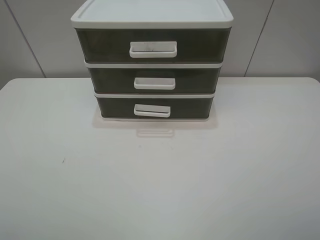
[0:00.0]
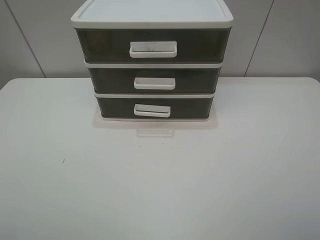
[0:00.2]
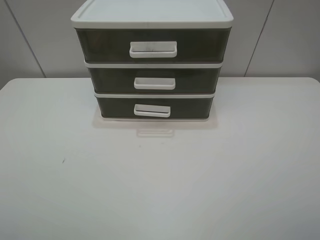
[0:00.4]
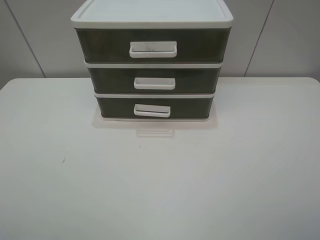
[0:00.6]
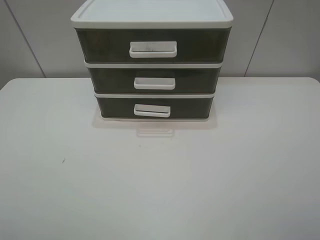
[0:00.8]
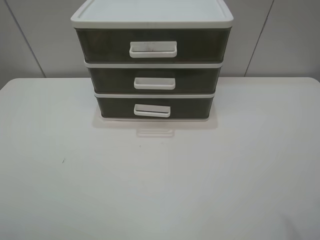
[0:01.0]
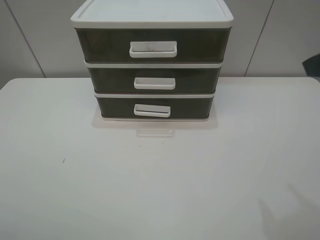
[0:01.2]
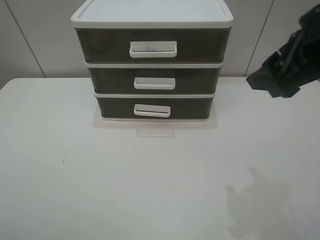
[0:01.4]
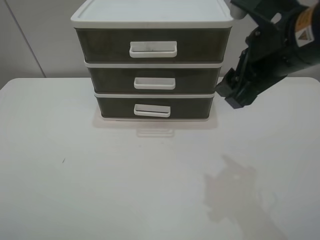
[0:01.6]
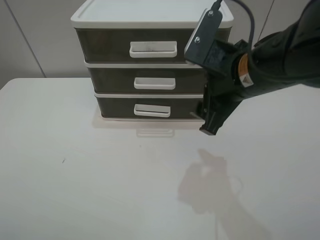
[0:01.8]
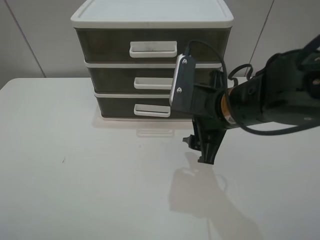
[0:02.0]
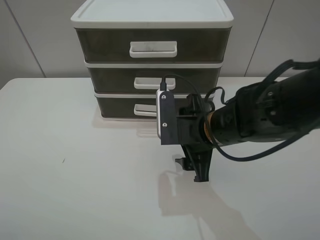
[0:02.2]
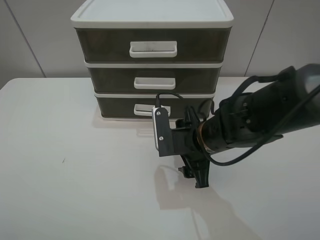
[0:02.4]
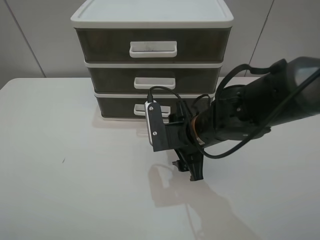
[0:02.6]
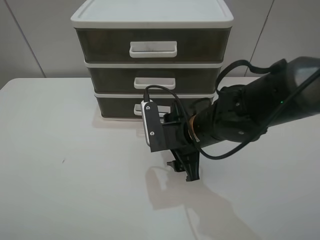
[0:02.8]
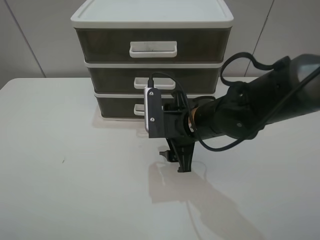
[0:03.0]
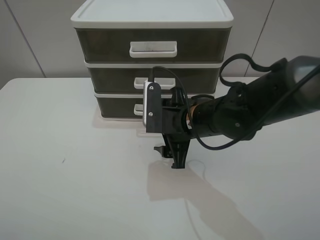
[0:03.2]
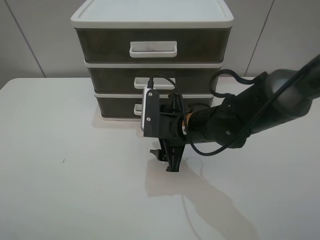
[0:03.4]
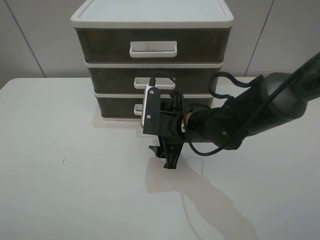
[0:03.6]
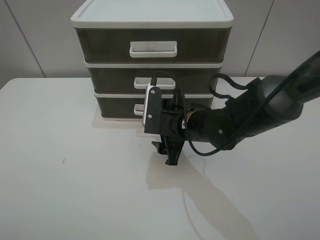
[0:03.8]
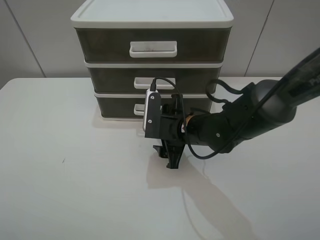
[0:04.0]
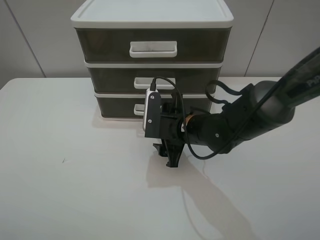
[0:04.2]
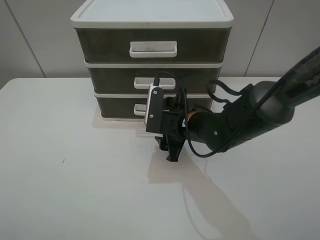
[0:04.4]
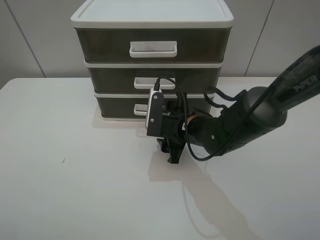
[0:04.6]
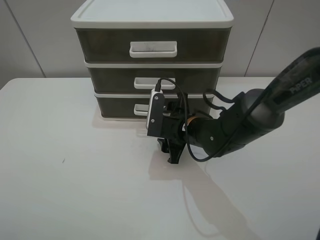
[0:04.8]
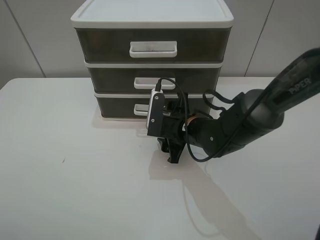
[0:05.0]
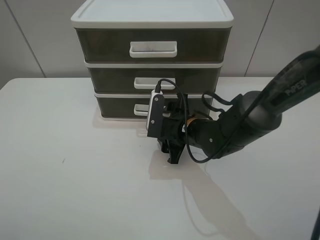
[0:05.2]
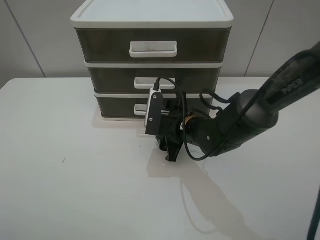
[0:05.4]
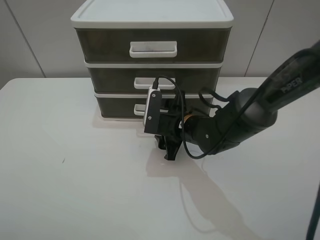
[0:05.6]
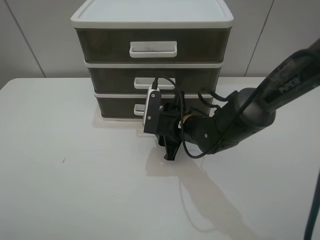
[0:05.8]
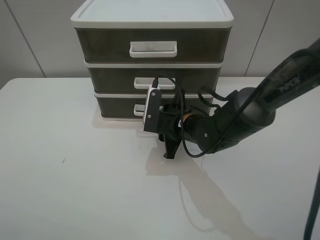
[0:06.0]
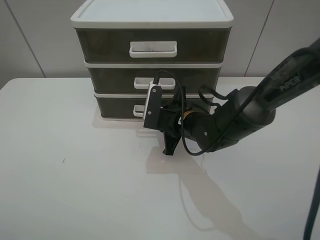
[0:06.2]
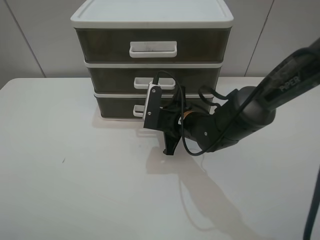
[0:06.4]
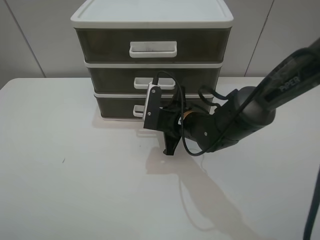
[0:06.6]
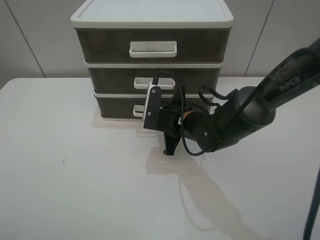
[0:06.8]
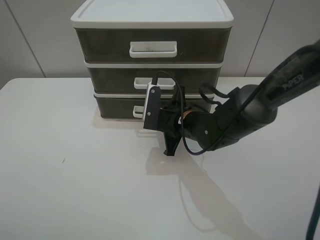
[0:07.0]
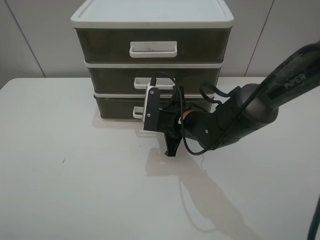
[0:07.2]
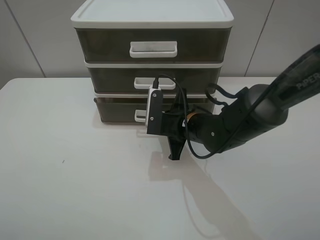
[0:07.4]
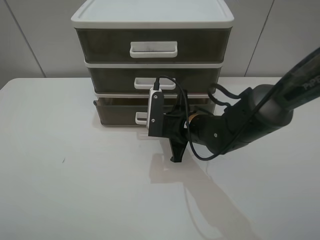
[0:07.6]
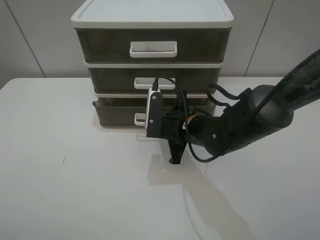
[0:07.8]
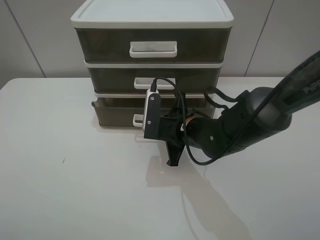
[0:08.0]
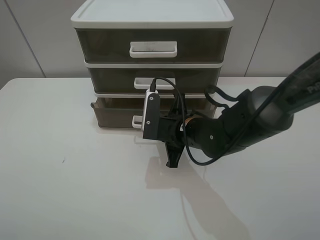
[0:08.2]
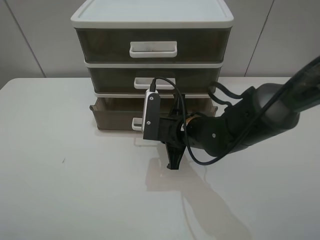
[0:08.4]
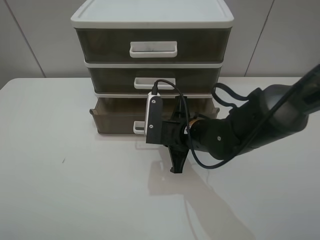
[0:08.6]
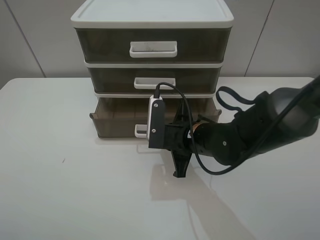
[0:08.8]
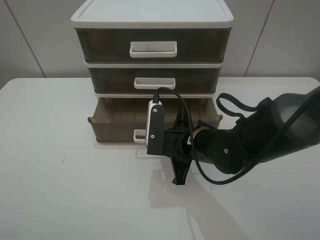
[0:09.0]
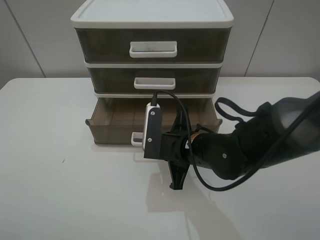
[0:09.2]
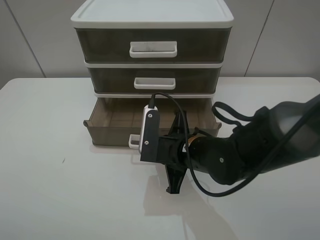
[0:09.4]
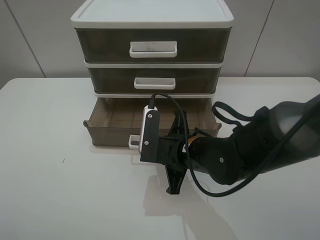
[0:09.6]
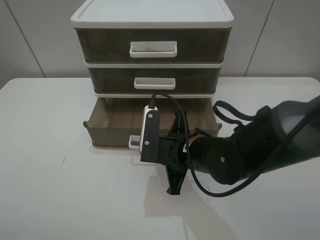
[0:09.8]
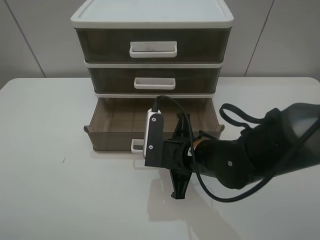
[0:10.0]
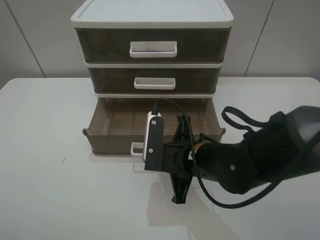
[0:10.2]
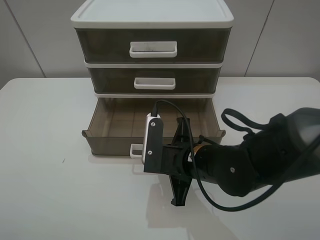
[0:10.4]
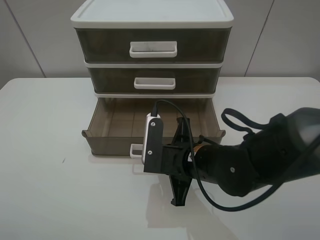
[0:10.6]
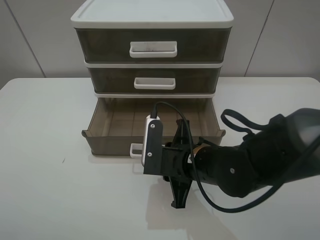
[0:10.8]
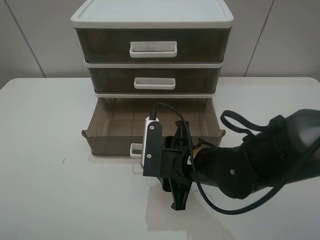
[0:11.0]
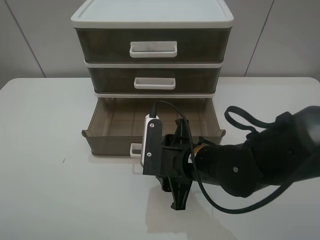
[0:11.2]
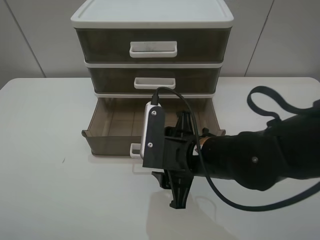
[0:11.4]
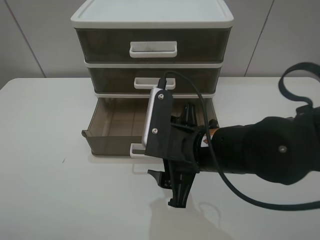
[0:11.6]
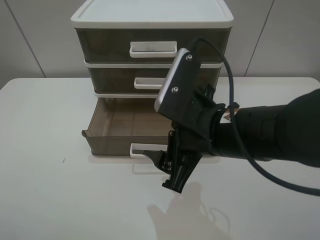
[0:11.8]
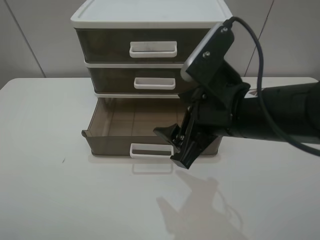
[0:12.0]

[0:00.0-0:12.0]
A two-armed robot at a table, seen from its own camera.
Task of the whole recording: open the bottom drawer.
Step, 0:00.0 to 0:07.2: Grab the bottom drawer with the right gripper.
Step, 0:07.4 to 0:11.2: Pull open the drawer with the right gripper.
0:00.0 to 0:01.6: The right gripper shifts about 25 cm forward and to the left.
0:01.6 to 0:03.0: The right gripper travels downward and to the left by approximately 20 cm.
0:03.0 to 0:04.4: There are only small adjustments of the grippers.
0:04.4 to 0:06.0: The right gripper closes up.
0:06.0 to 0:07.6: The right gripper closes.
0:07.6 to 0:09.0: The right gripper travels backward by about 5 cm.
0:09.0 to 0:10.4: There are only small adjustments of the grippers.
0:10.4 to 0:12.0: The right gripper is displaced upward by some 15 cm, and opens.

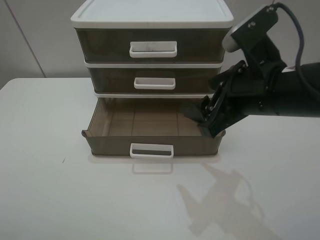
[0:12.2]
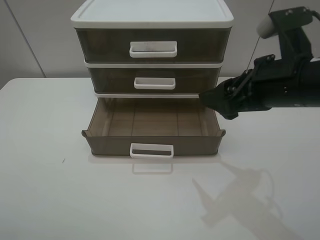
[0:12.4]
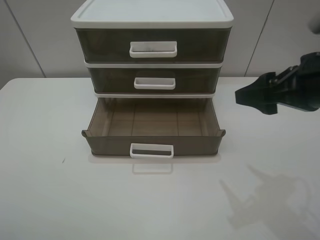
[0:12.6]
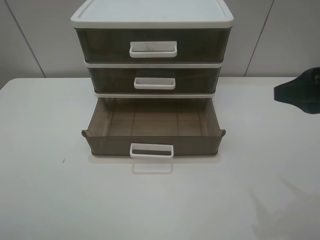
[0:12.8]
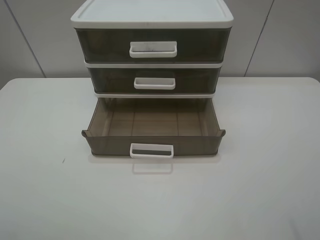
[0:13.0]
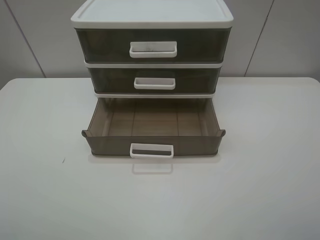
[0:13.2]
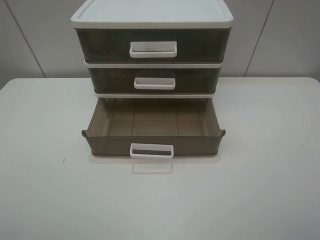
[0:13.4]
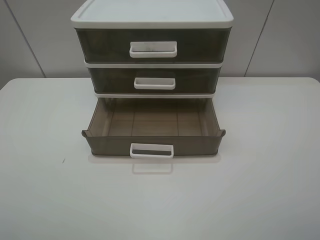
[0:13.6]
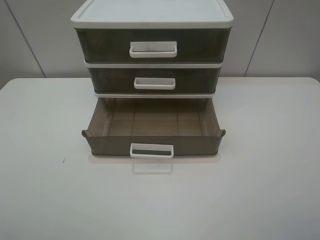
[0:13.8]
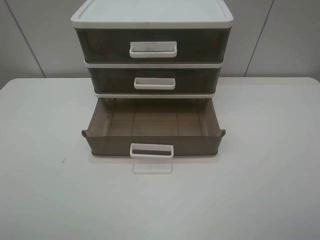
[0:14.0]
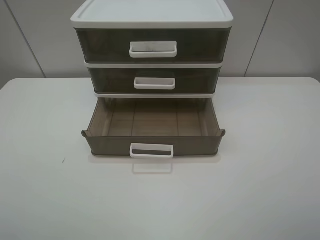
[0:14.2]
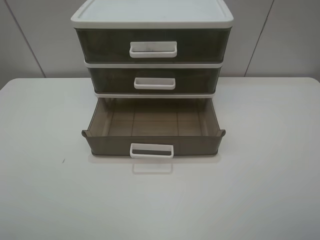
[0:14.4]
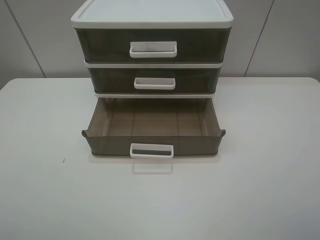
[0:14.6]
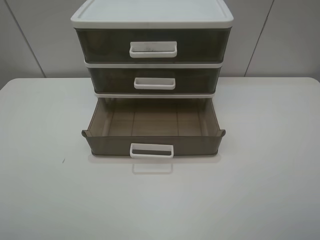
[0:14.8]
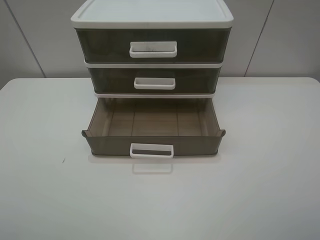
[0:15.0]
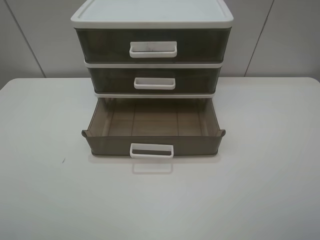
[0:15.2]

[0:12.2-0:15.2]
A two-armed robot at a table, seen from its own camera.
Task of the whole recording: open the bottom drawer.
0:12.2 to 0:13.8: The right gripper moves backward and to the right, roughly 25 cm.
0:13.8 to 0:15.2: Both grippers stay put.
